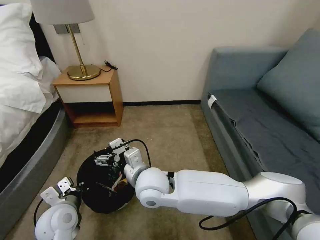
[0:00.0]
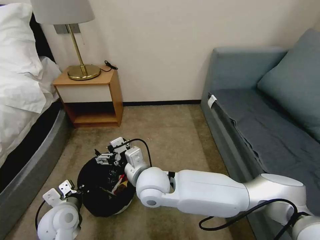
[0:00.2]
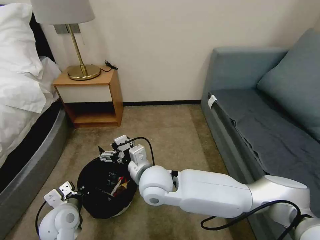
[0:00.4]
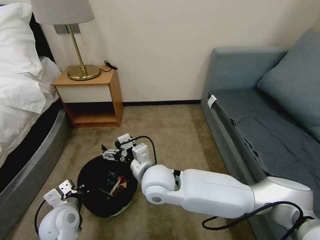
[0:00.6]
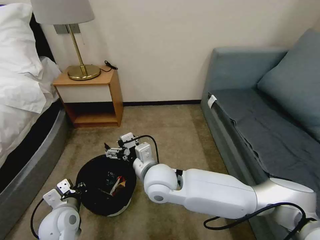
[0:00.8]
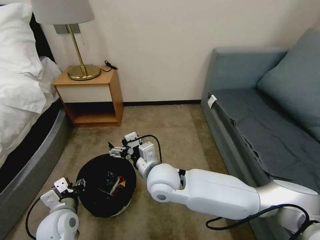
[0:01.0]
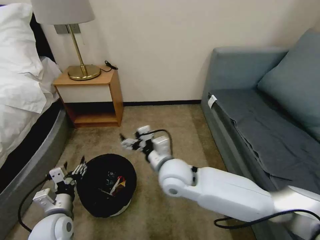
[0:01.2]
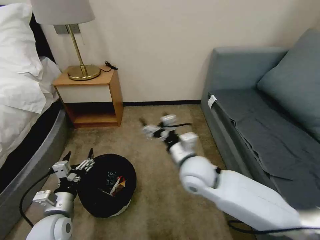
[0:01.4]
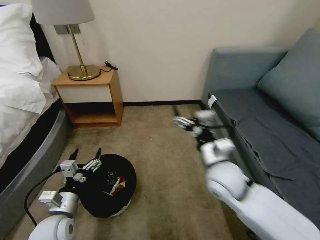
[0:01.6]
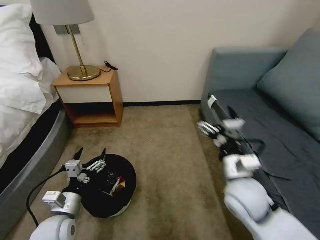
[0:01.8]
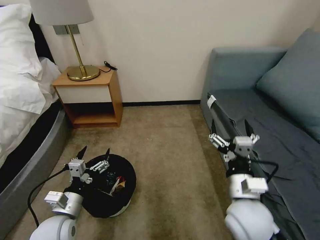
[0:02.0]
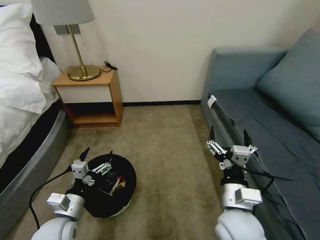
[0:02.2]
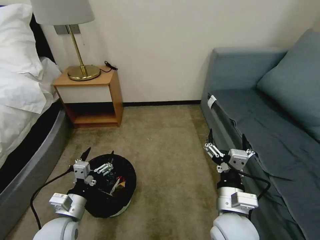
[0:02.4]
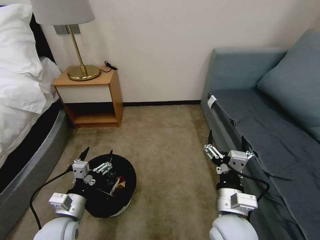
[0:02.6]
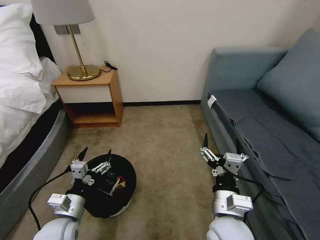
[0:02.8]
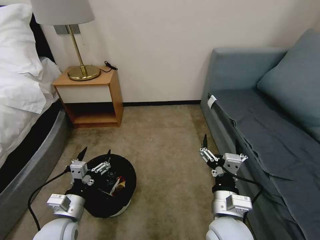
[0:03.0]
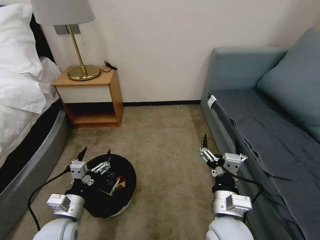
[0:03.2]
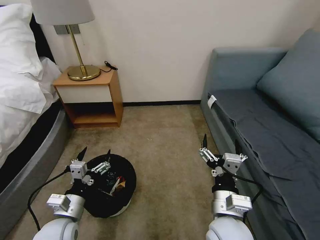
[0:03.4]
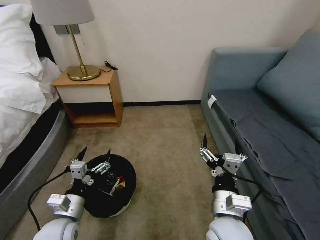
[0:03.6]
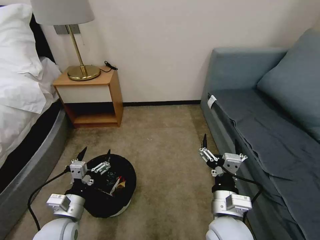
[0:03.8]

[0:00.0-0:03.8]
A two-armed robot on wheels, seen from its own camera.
Task of the whole recording: Pick up the trash bin, then pick up the garbage on the floor and place it into the trash bin.
0:00.0 to 0:01.2: The left gripper opens up, while the right gripper moves to the right, approximately 5 cm.
0:01.2 to 0:02.6: The right gripper travels backward and to the right by approximately 20 cm.
0:02.6 to 0:03.8: The two grippers keep their place.

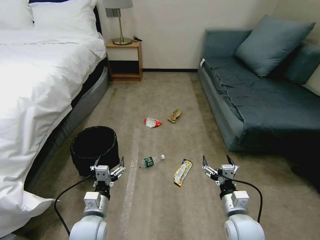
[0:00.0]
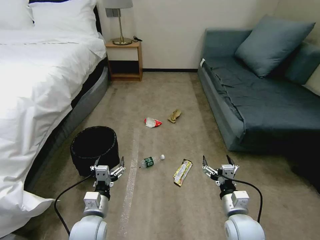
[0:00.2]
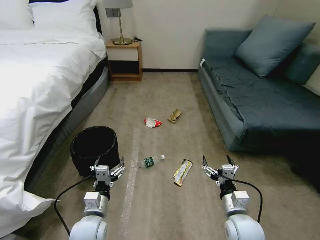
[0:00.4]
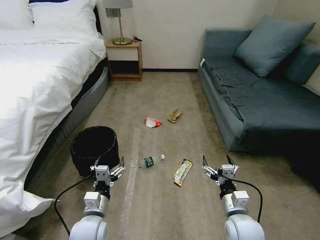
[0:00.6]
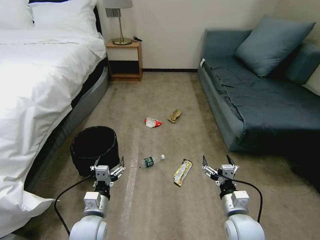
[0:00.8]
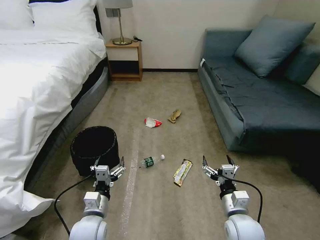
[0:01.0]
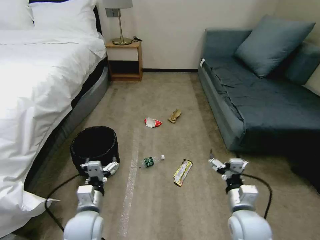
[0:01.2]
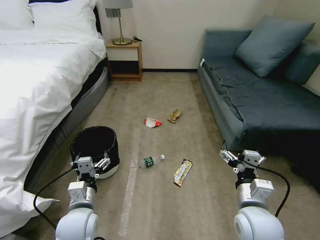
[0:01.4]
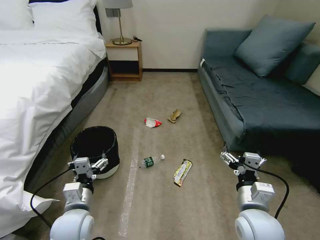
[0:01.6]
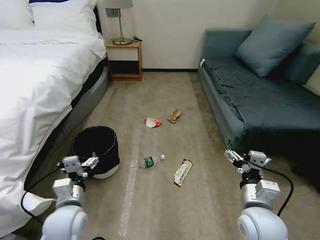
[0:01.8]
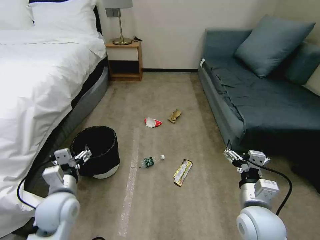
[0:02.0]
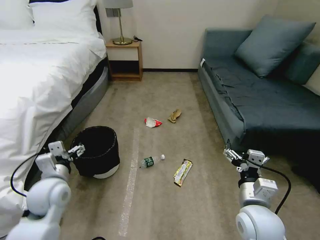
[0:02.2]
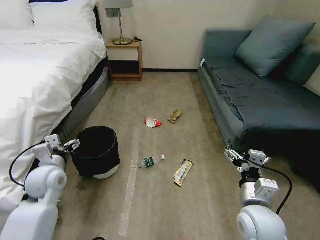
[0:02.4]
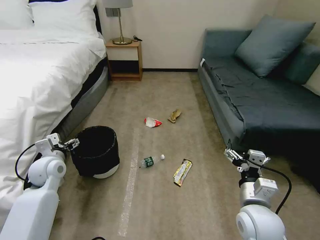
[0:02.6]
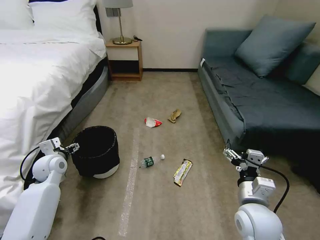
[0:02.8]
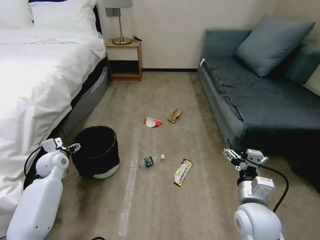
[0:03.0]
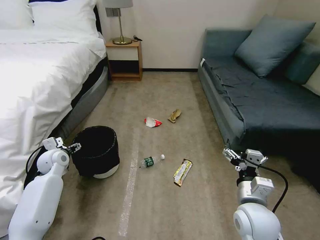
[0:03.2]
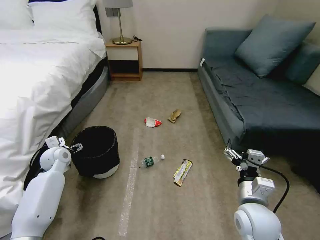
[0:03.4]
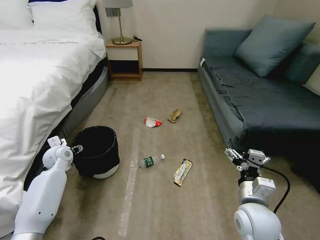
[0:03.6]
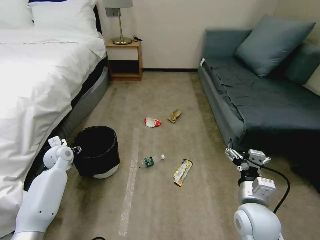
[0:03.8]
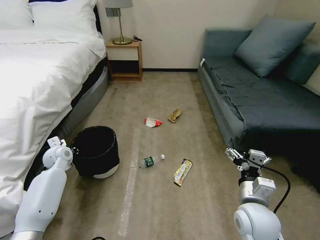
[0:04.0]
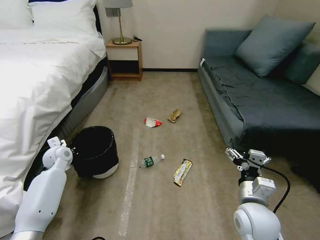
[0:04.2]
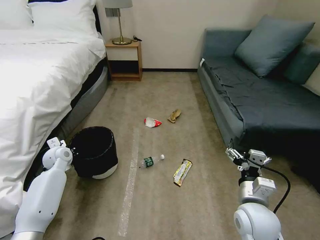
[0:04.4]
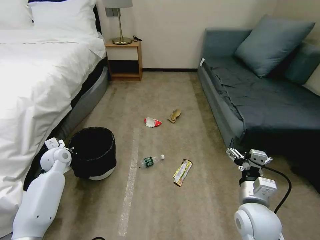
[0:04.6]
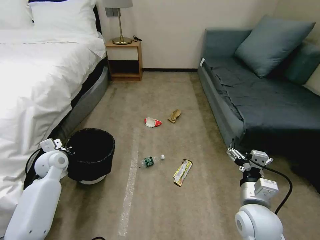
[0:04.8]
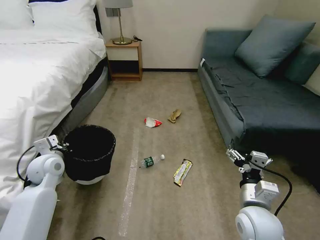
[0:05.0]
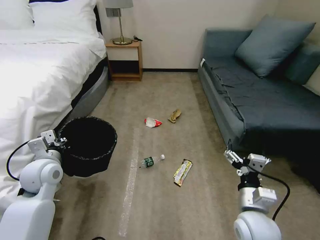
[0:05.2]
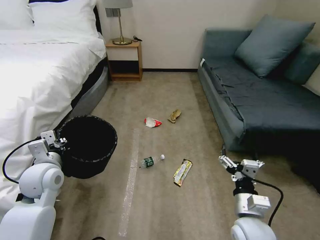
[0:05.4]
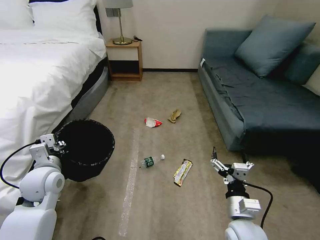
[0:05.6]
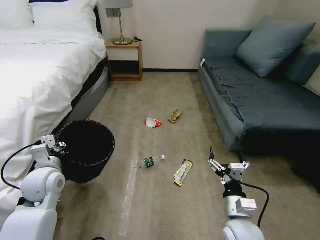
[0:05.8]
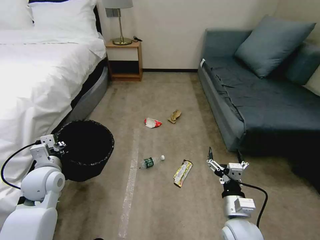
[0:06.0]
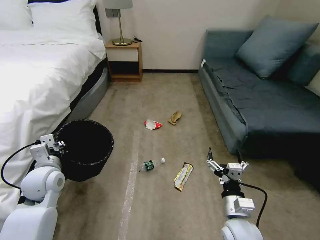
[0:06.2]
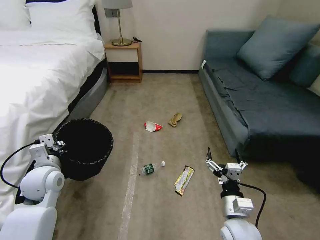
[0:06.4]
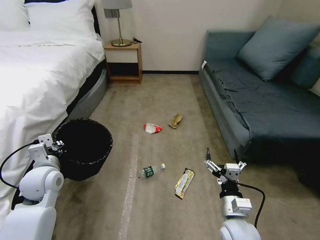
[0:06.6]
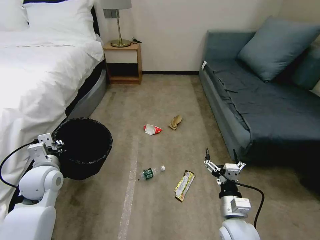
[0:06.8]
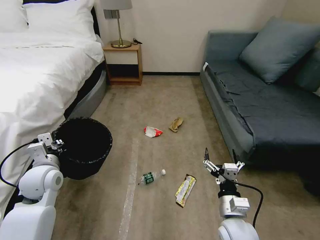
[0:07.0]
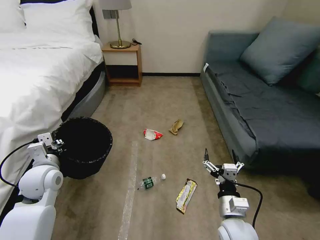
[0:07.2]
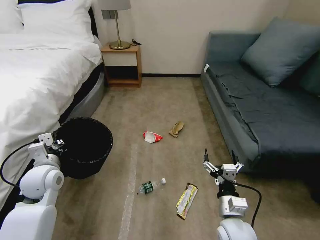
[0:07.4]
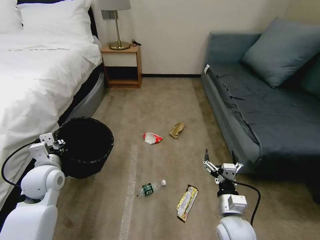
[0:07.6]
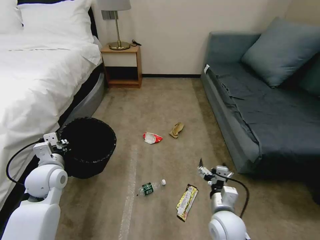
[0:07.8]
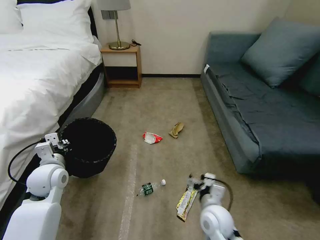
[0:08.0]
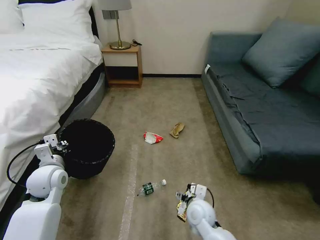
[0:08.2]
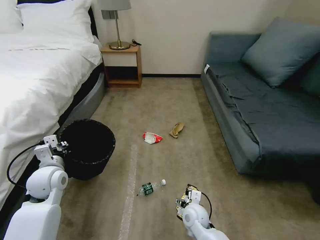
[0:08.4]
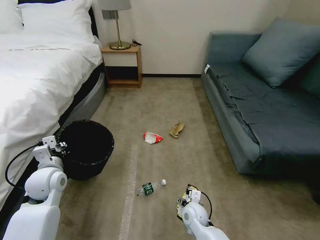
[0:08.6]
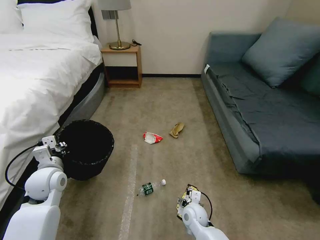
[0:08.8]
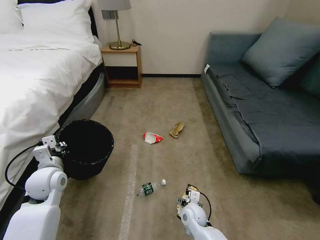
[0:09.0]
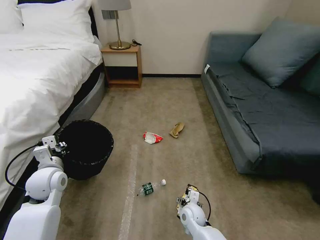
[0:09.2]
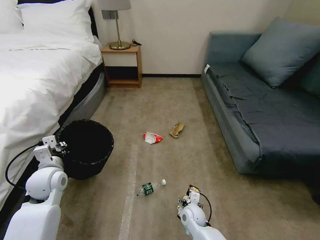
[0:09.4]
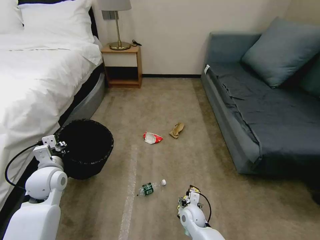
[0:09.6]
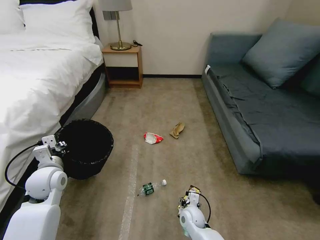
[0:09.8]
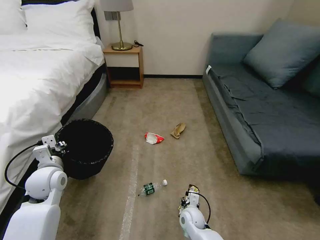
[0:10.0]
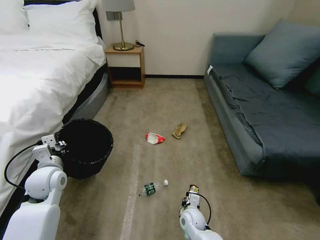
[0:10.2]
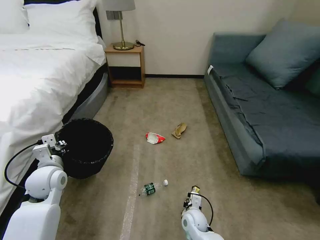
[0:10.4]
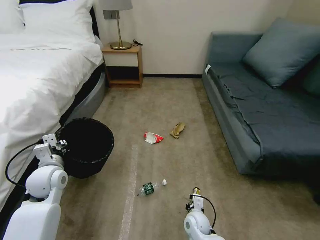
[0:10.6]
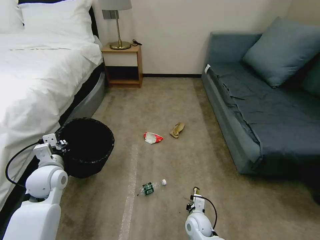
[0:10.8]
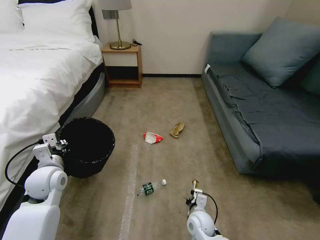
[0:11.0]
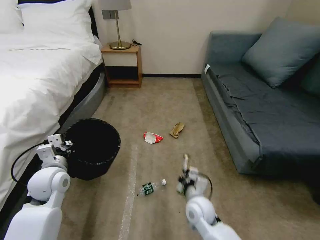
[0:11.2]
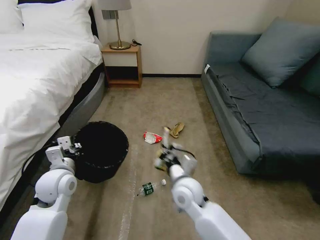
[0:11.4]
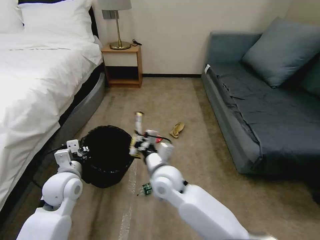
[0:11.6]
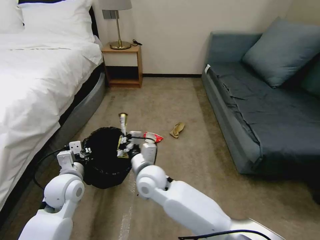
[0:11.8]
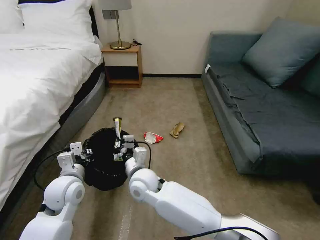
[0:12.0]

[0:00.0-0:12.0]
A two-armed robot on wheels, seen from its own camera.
Task of the whole recording: Pick up the trash bin, then pick up the garbage on the floor and place it into the trash bin.
0:01.6 to 0:03.0: The left gripper heads forward and to the left, covering some 25 cm.
0:03.0 to 0:04.4: The left gripper closes up.
0:04.4 to 0:06.0: The left gripper shifts about 15 cm backward, upward and to the right; the right gripper goes about 5 cm downward.
0:07.6 to 0:09.0: The right gripper heads downward, to the left and forward, covering some 20 cm.
0:09.0 to 0:10.4: The right gripper closes.
0:10.4 to 0:12.0: The left gripper is displaced to the right by about 5 cm, while the right gripper is displaced upward and to the left by about 30 cm, and closes its fingers.

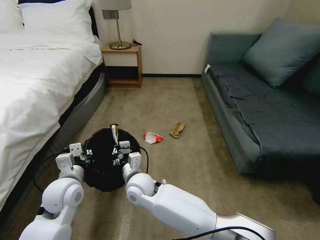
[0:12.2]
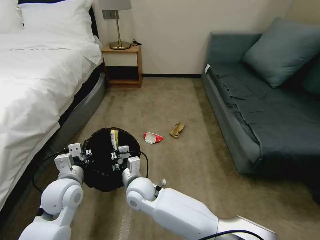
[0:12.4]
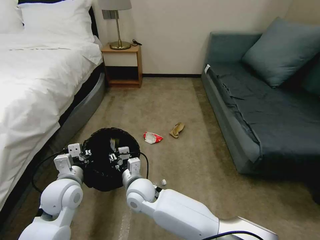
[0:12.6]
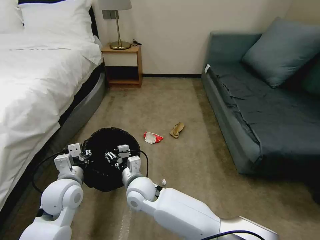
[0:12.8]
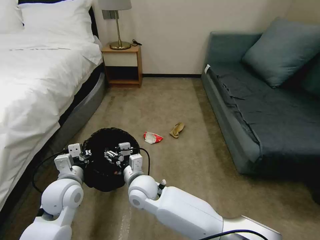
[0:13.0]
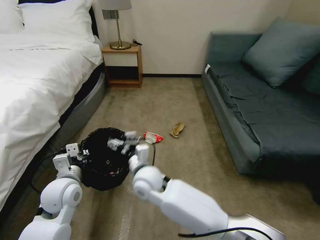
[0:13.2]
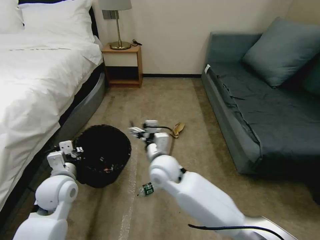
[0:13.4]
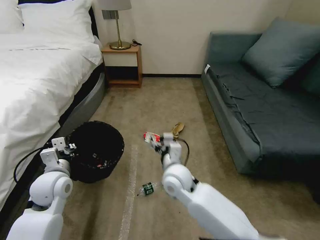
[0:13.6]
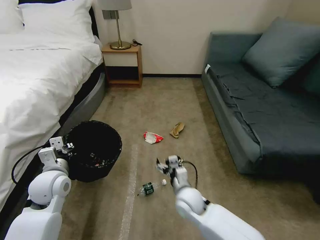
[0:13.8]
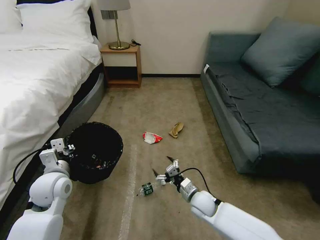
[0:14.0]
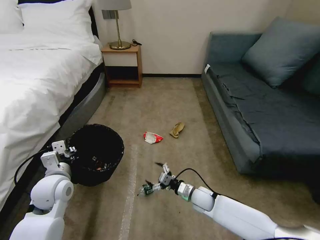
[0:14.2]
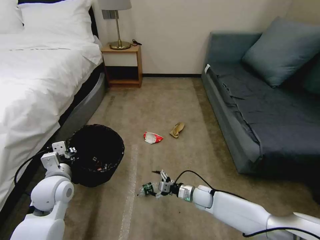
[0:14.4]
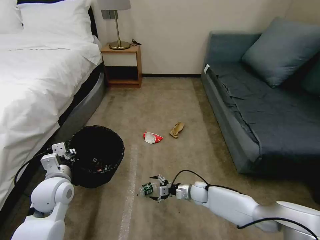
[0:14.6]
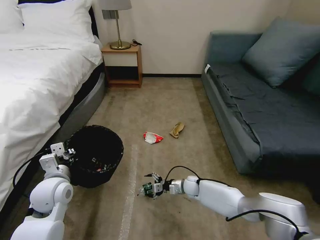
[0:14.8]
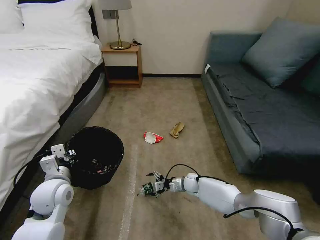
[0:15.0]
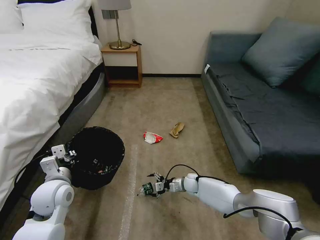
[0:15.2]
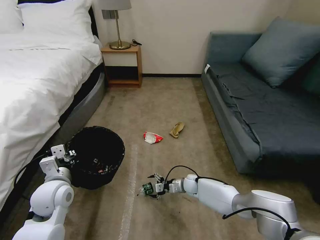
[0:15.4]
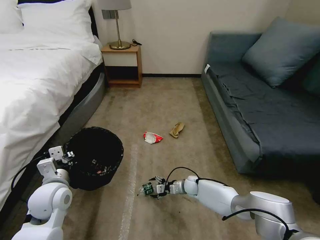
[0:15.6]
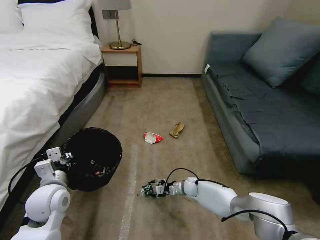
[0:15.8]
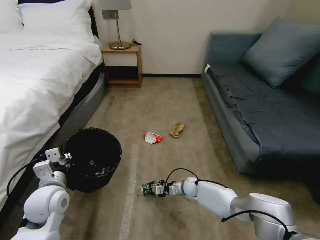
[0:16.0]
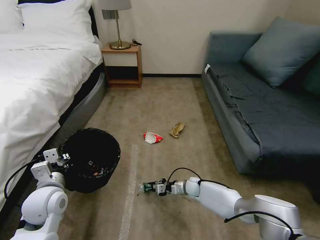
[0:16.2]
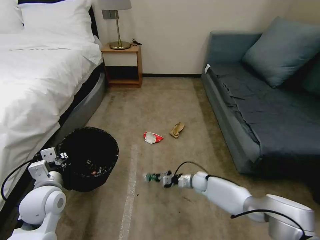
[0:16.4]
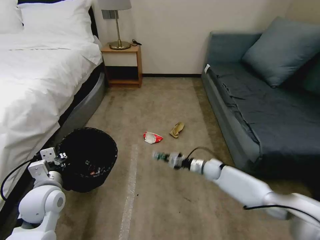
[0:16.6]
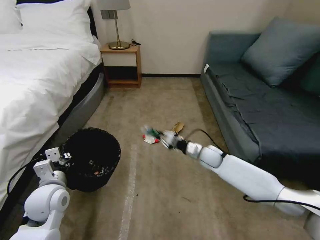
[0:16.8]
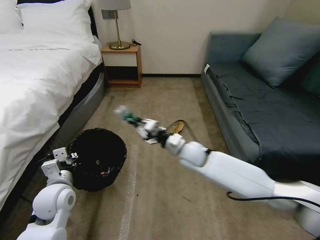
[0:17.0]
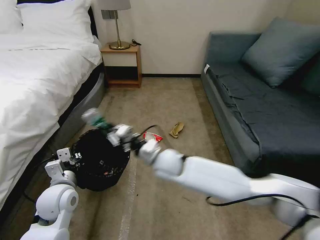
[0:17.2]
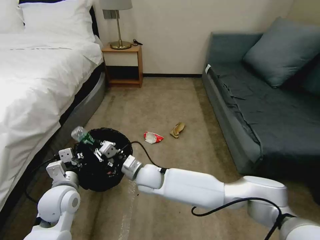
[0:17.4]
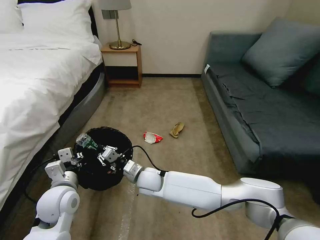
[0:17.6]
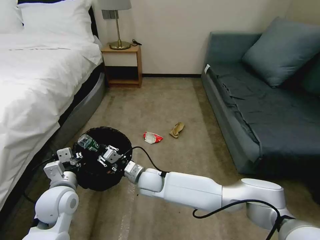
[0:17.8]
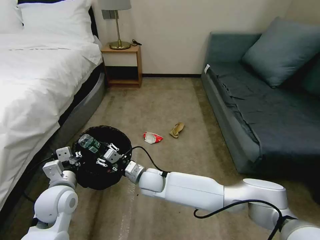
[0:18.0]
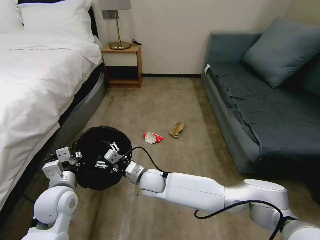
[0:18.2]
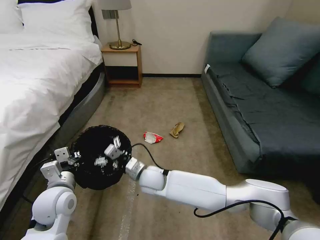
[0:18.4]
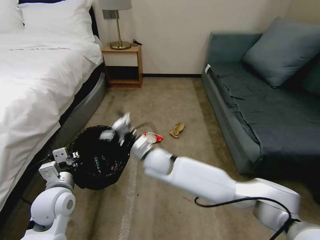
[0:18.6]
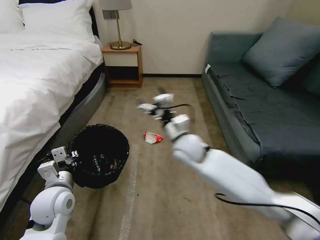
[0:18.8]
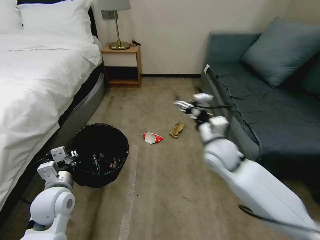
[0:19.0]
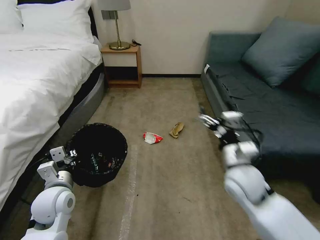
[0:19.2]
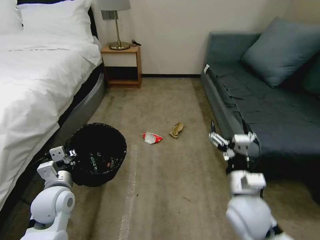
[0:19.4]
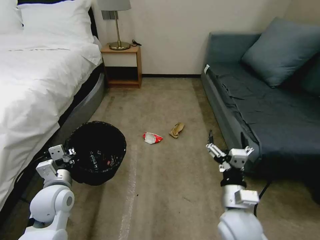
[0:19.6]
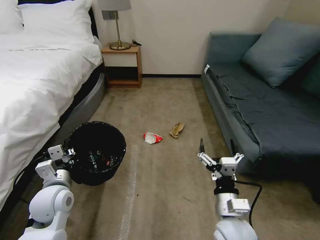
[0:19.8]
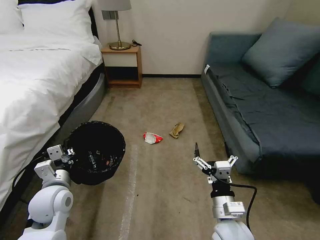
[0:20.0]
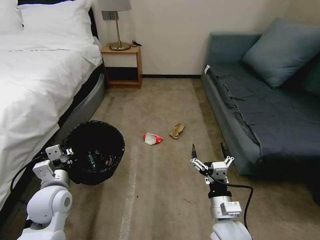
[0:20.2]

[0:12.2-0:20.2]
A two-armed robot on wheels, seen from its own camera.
Task of the whole recording: Pick up the trash bin, then pick up the garbage on the floor and place it into the trash bin.
0:12.2 to 0:13.8: The right gripper goes roughly 15 cm to the right, and opens its fingers, while the left gripper shifts by roughly 5 cm.
0:13.8 to 0:15.4: The right gripper is displaced downward, forward and to the right by about 25 cm.
0:15.4 to 0:17.0: The right gripper is displaced upward by approximately 25 cm, and closes up.
0:17.0 to 0:18.6: The right gripper goes some 15 cm to the left, and opens up.
0:18.6 to 0:20.2: The right gripper is displaced backward and to the right by some 30 cm.
